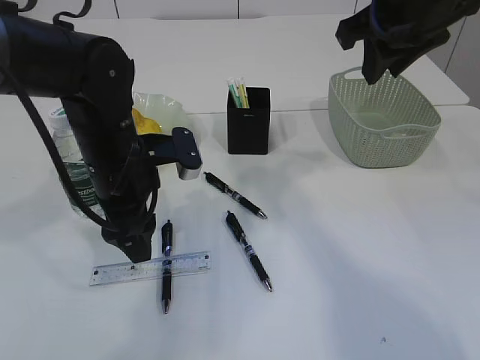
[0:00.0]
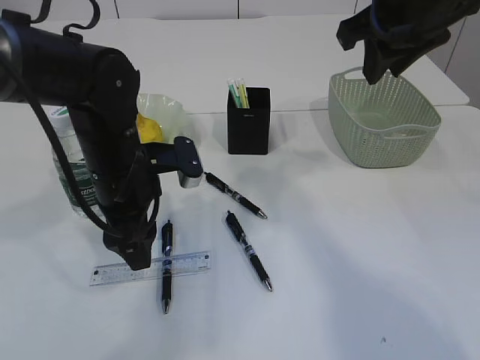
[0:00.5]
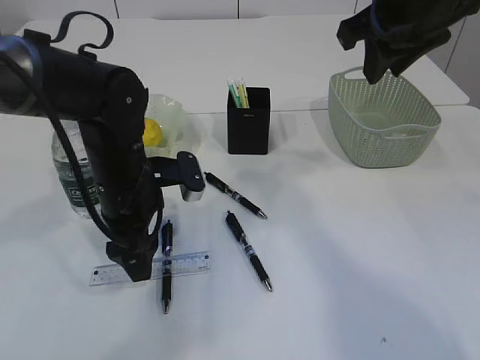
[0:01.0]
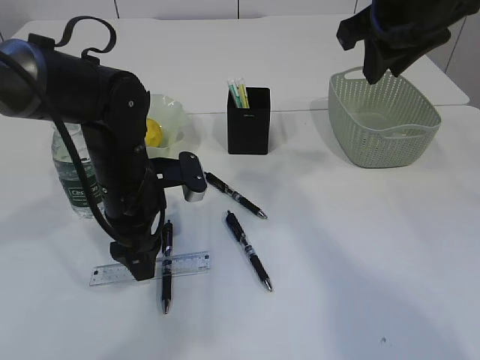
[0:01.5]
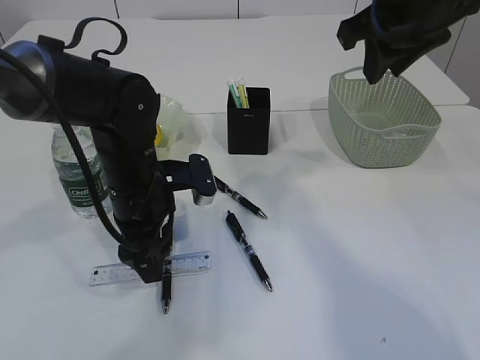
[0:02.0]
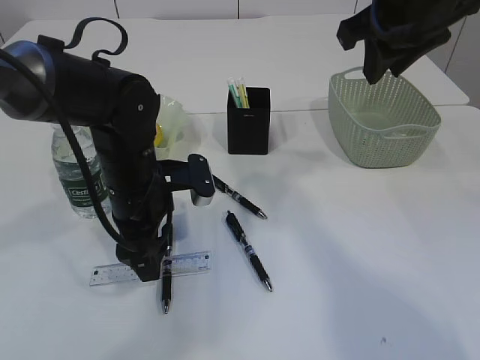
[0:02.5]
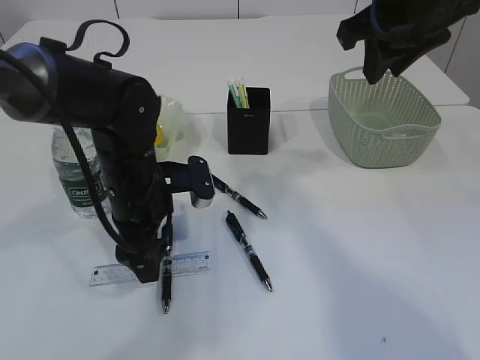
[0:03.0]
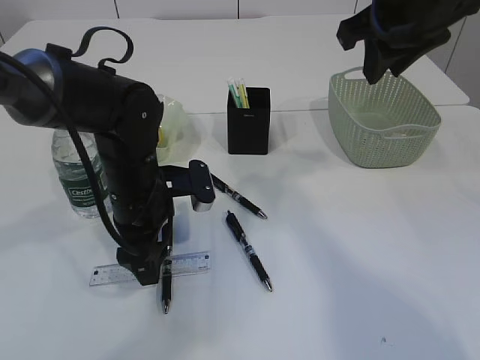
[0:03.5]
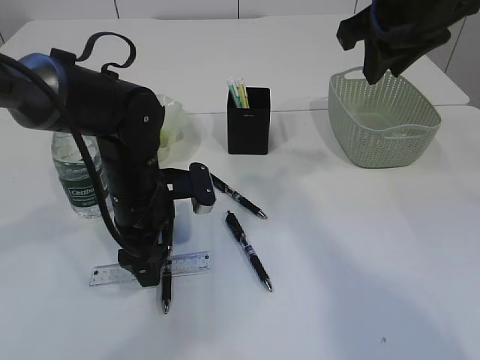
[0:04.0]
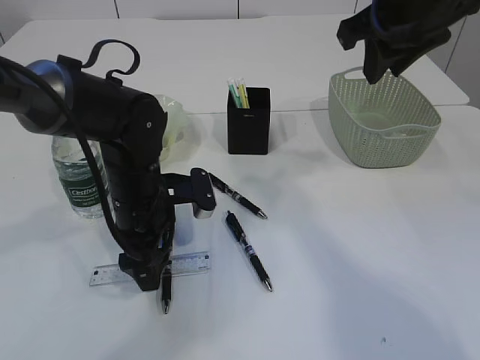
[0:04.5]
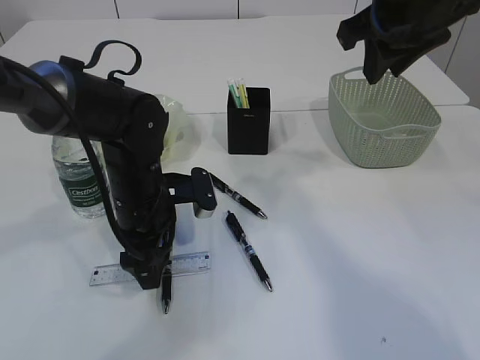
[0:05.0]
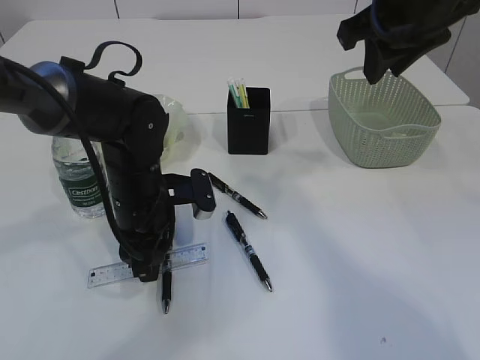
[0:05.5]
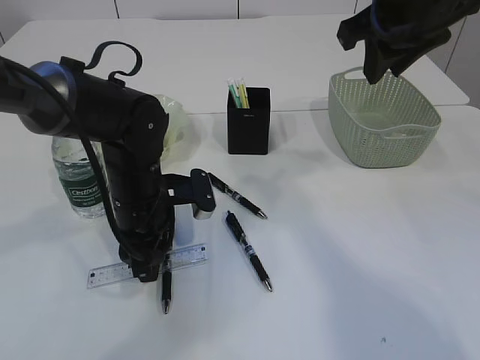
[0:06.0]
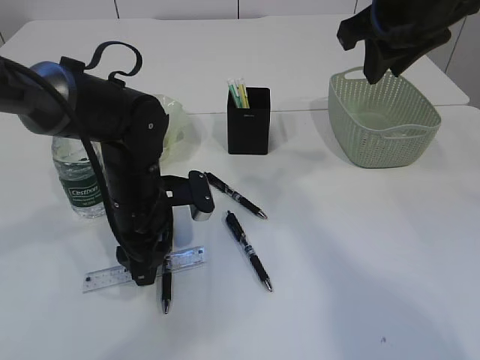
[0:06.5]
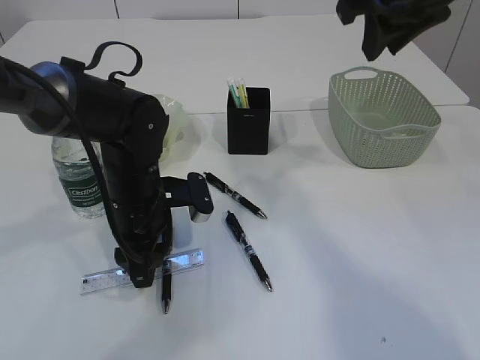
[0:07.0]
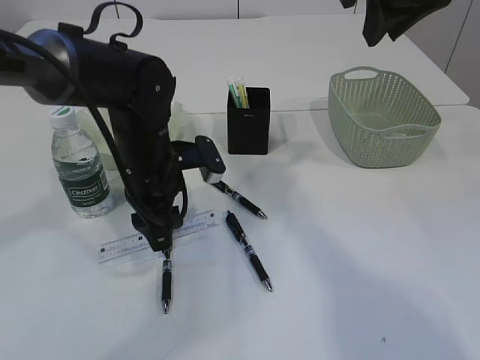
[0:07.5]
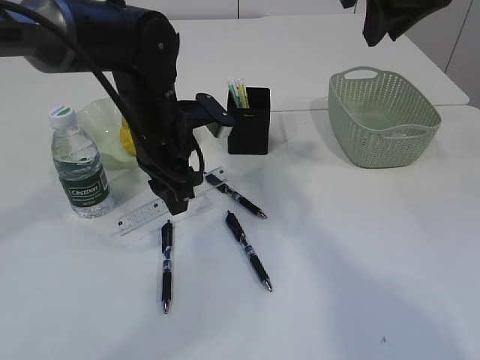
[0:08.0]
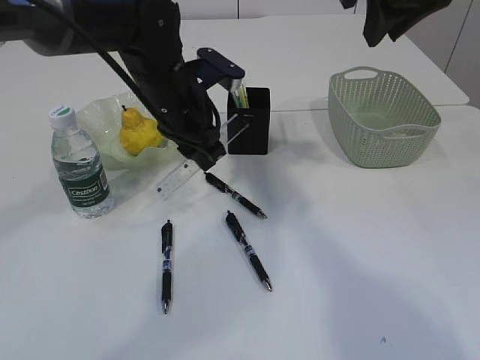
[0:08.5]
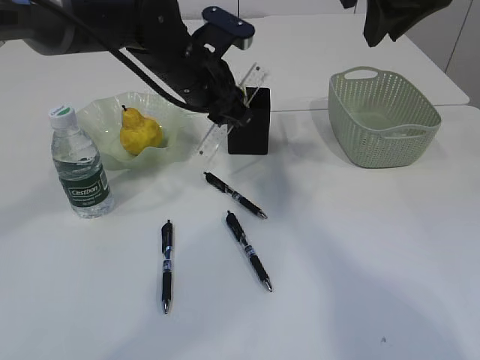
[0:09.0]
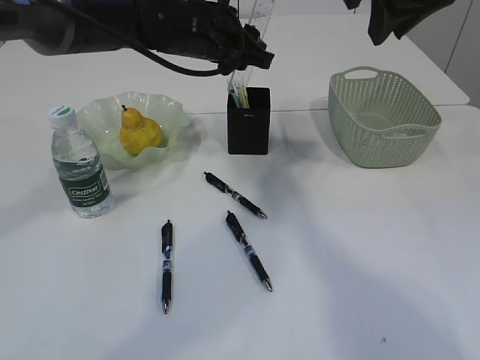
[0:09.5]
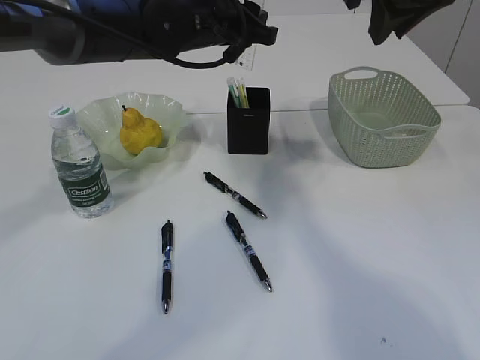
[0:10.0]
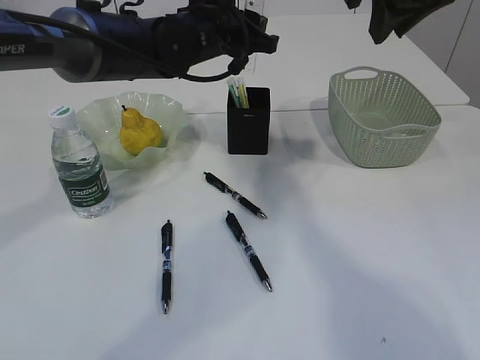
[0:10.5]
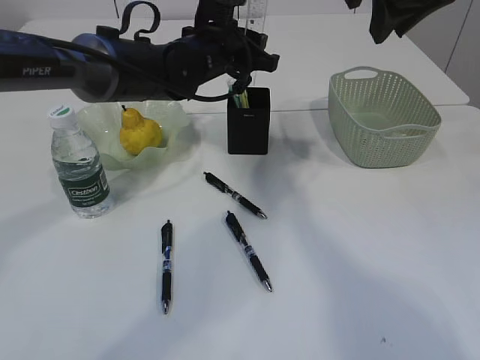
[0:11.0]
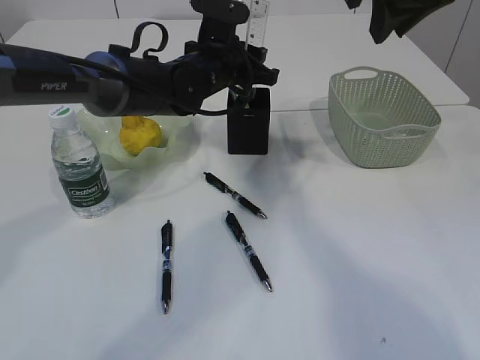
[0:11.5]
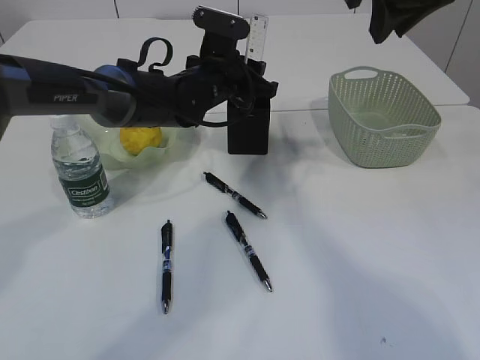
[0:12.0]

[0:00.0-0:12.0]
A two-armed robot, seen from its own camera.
Step, 0:00.0 to 0:08.5: pick up the ruler.
0:00.0 to 0:02.0: The grippers move only a little.
0:02.0 to 0:04.0: Both grippers stay about where they are.
0:04.0 to 0:06.0: The left gripper closes its fingers.
0:06.0 to 0:08.0: The left gripper heads upward, covering about 5 cm.
0:08.0 to 0:10.0: The left gripper travels upward and forward by approximately 10 cm.
0:10.0 to 0:12.0: The left gripper shifts about 10 cm downward.

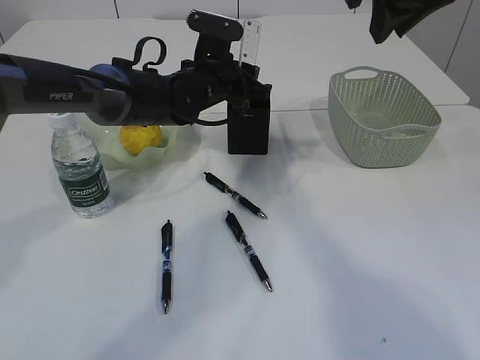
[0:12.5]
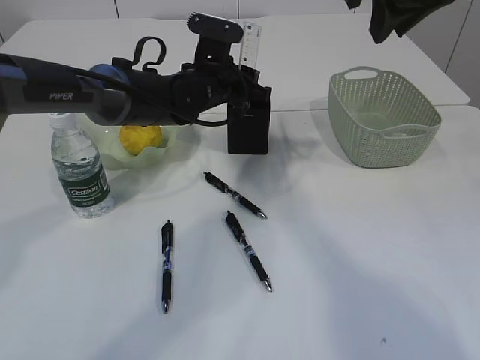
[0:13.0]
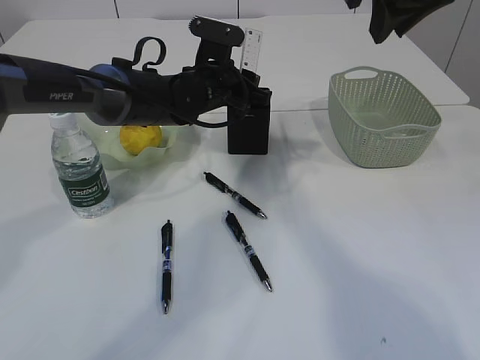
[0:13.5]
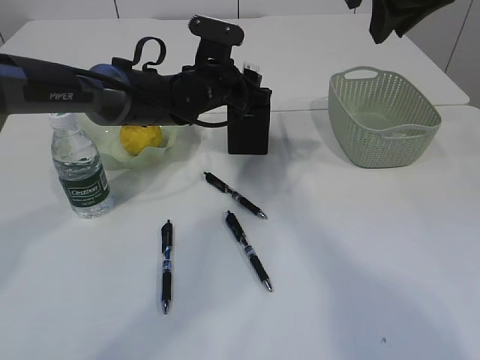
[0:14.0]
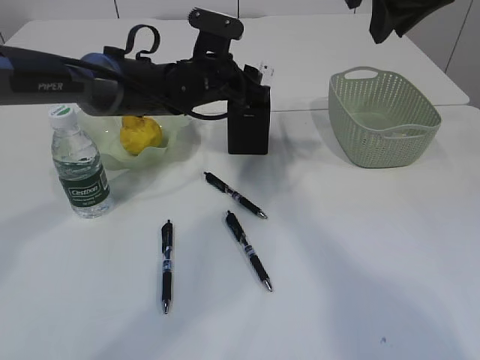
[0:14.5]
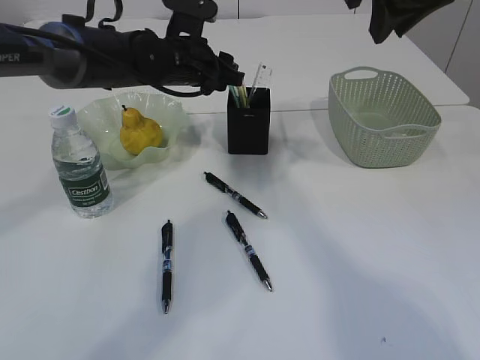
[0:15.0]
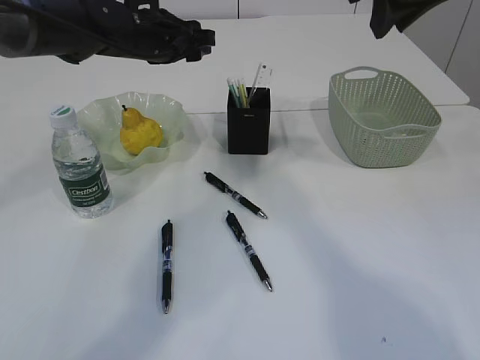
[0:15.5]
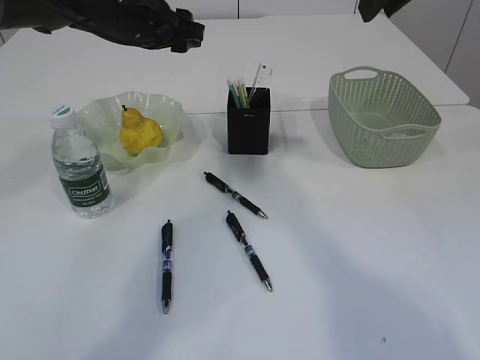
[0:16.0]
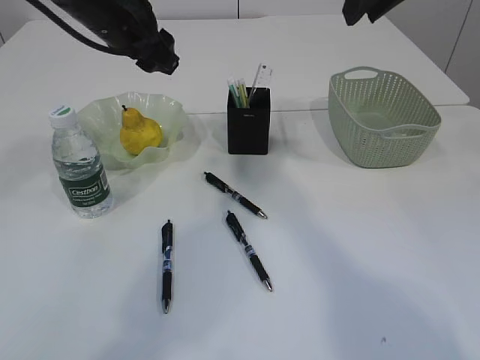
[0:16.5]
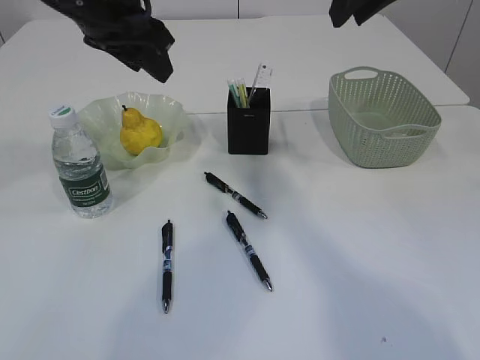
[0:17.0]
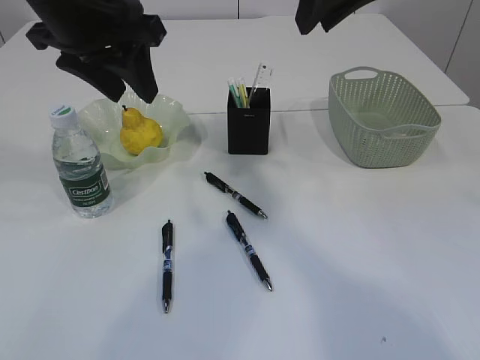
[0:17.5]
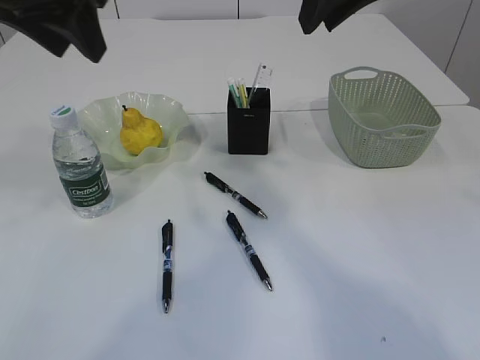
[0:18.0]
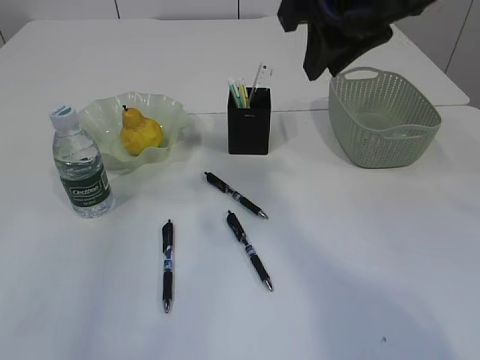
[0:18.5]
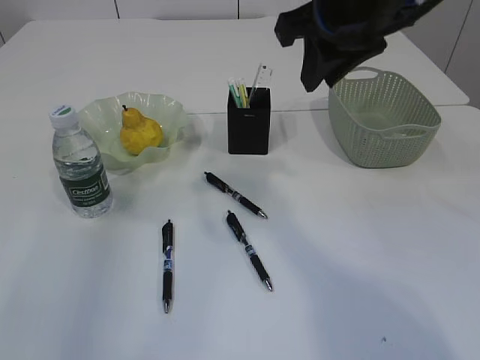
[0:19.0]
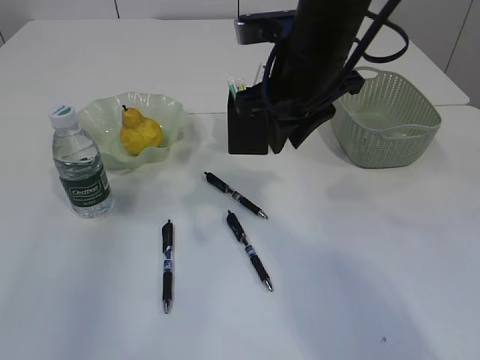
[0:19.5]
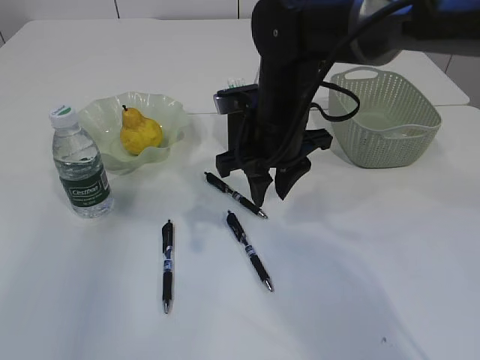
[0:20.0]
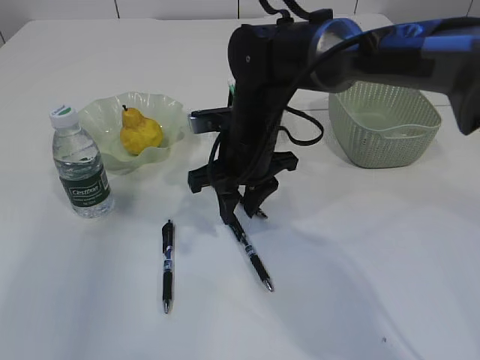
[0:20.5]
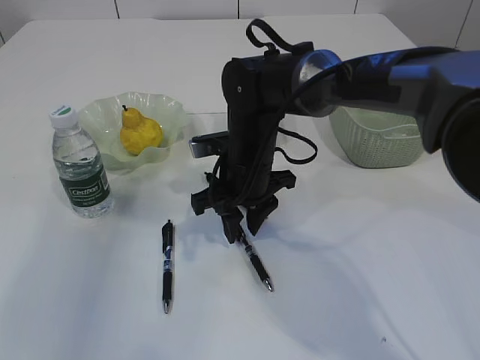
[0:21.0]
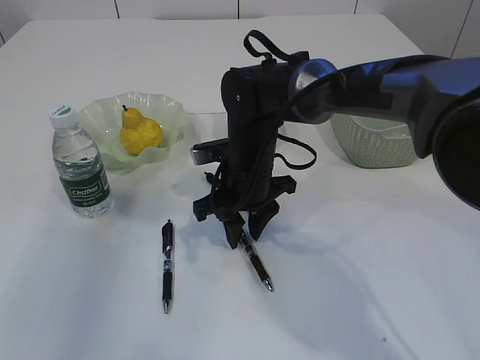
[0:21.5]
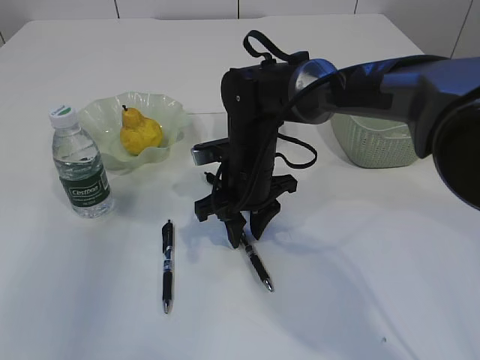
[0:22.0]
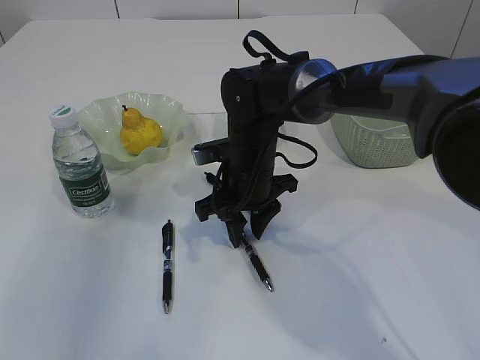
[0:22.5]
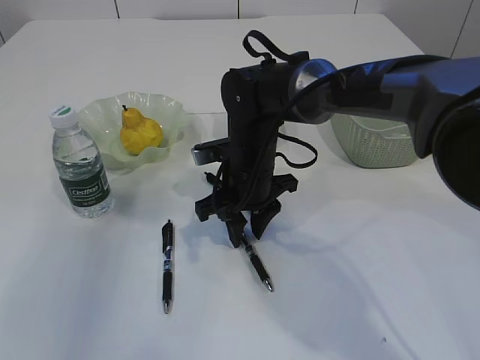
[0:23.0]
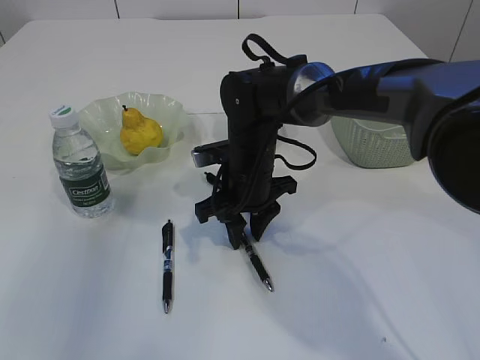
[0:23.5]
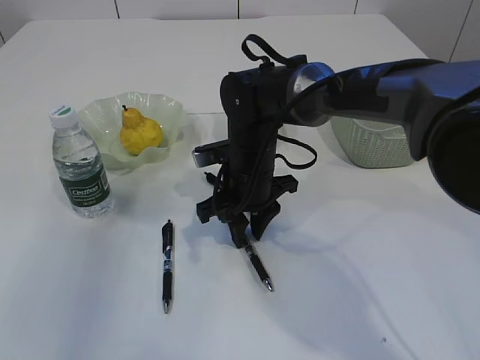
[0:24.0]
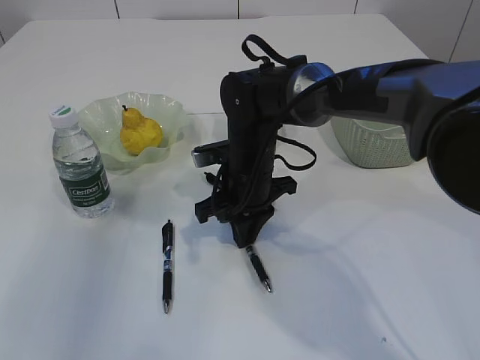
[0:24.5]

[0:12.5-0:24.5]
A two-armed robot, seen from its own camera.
Step, 0:12.5 to 0:15.5: Place the ruler into the pen holder.
0:12.5 to 0:14.5: The left gripper opens its fingers.
0:14.5 to 0:16.5: The left gripper goes some 15 cm upward and to the left.
0:16.5 to 0:18.5: The left gripper heads backward, to the left and upward, covering some 25 cm, while the right gripper ends up some 5 cm from where it was.
0:18.5 to 0:20.5: The right gripper moves downward and to the left, approximately 20 cm.
0:20.5 to 0:22.5: There are only small adjustments of the grippers.
0:22.5 to 0:24.5: The right gripper closes.

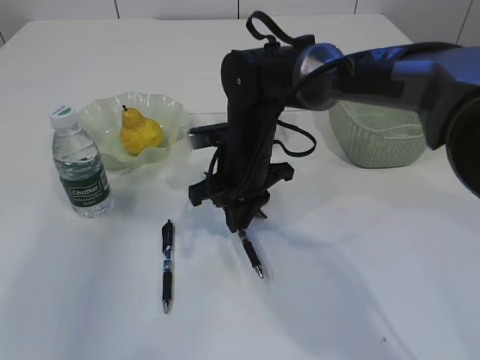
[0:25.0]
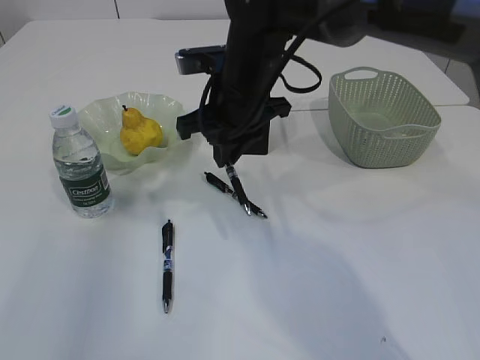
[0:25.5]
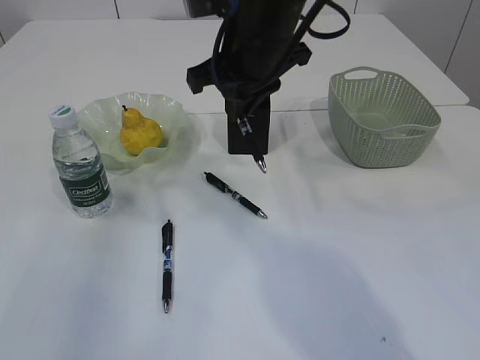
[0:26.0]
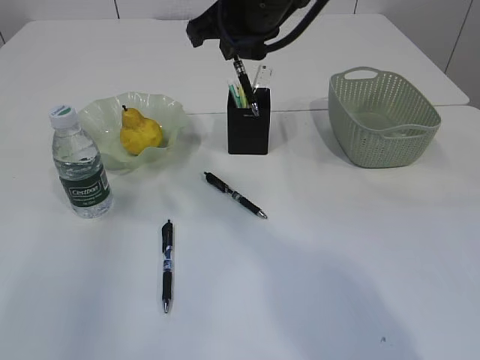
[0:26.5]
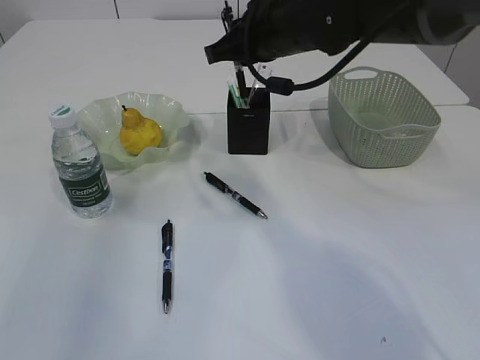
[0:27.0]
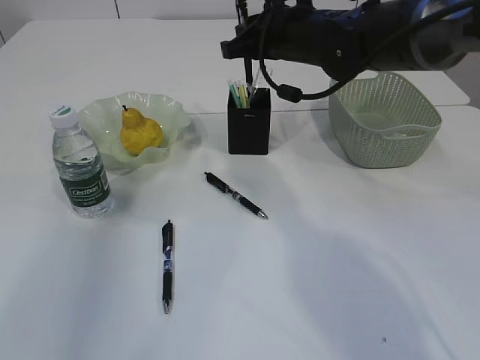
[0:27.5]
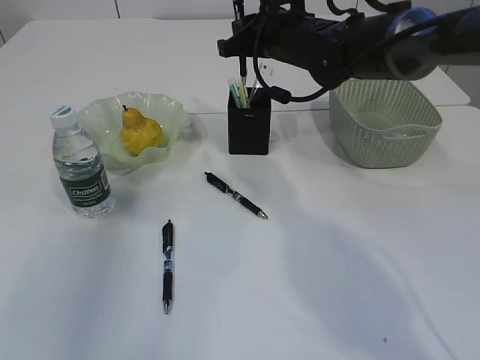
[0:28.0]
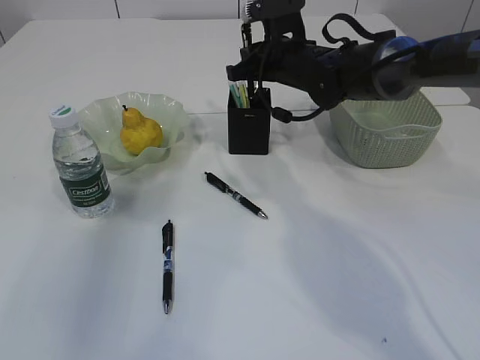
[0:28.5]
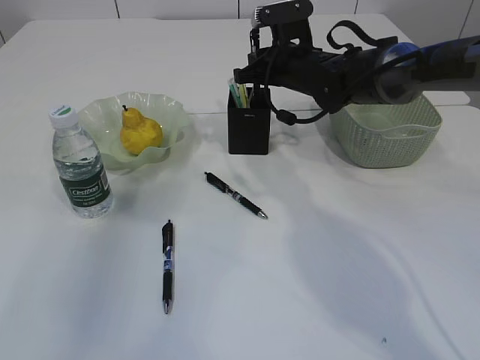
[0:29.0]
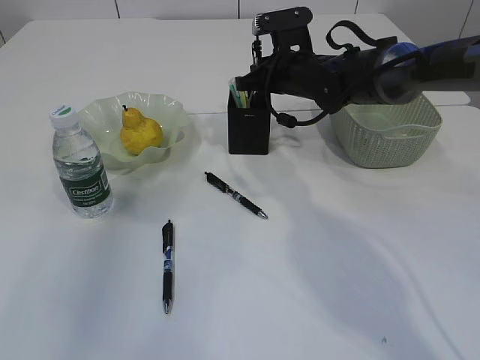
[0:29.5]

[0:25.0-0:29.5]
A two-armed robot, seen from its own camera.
0:25.0 to 0:27.0: The right gripper travels upward by about 15 cm.
0:27.0 to 0:29.5: The right gripper goes roughly 10 cm downward and forward.
